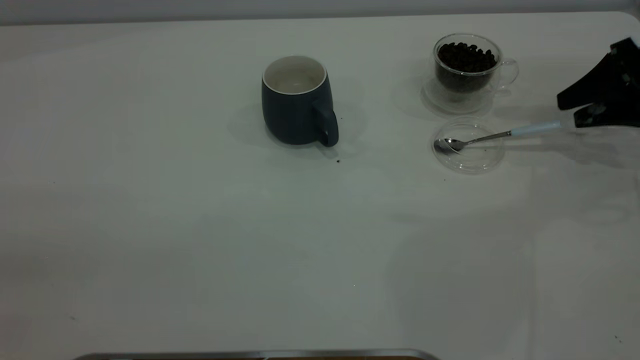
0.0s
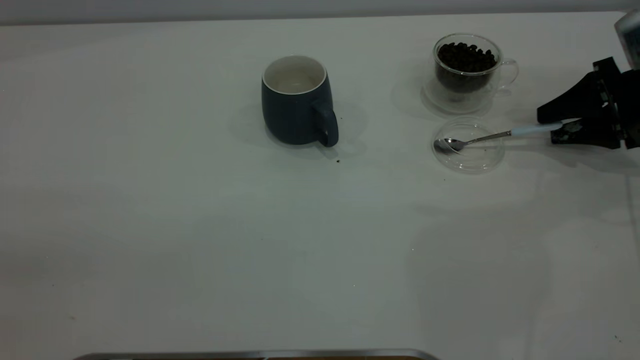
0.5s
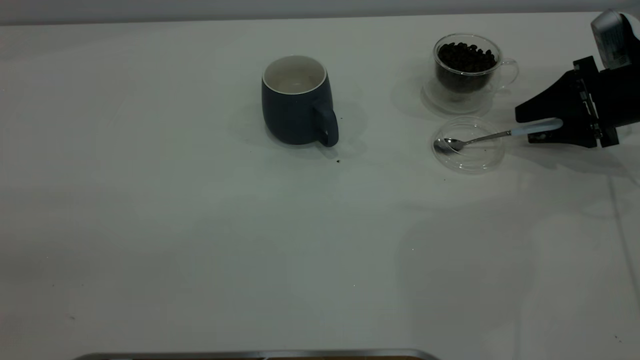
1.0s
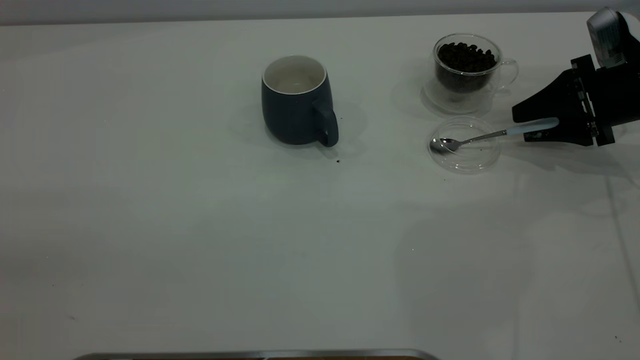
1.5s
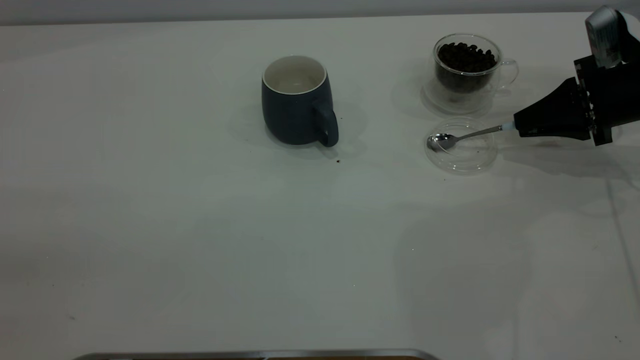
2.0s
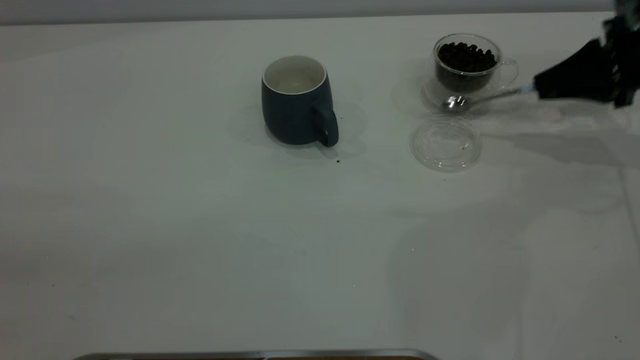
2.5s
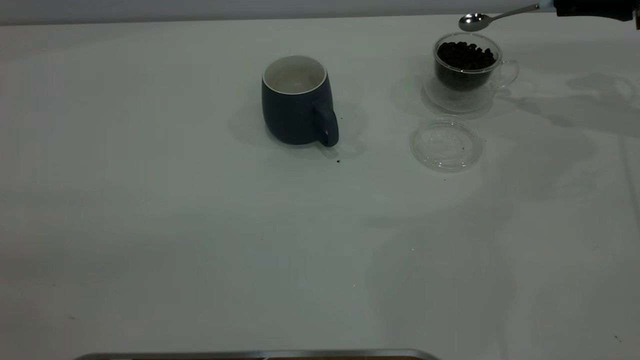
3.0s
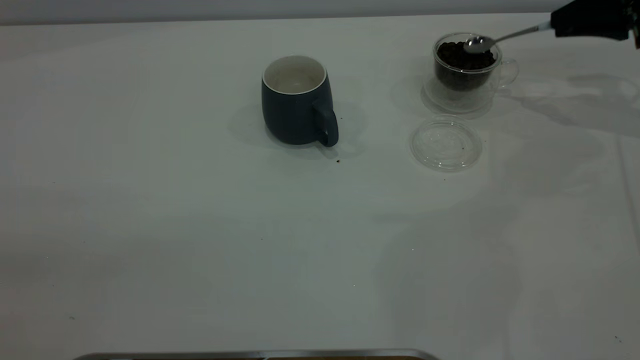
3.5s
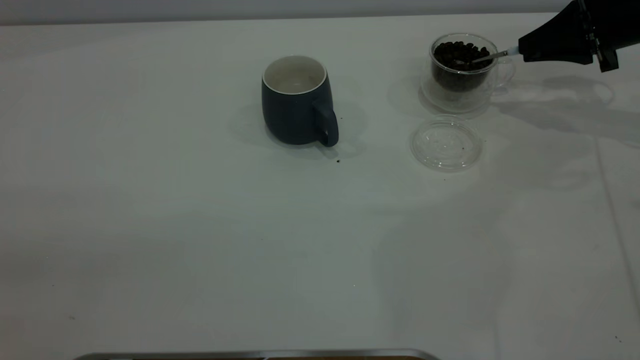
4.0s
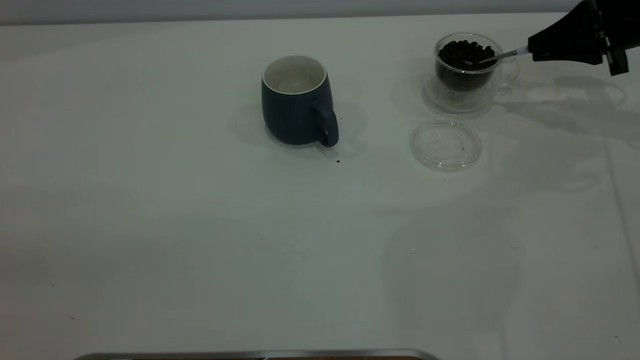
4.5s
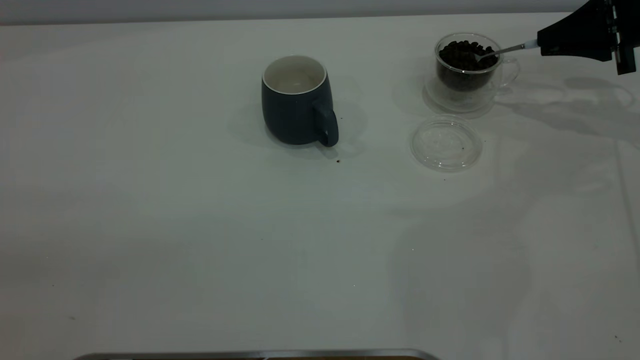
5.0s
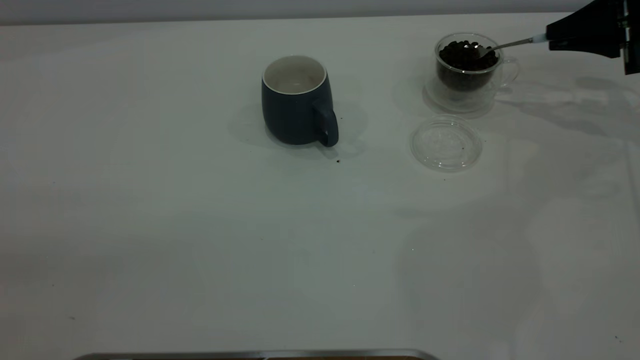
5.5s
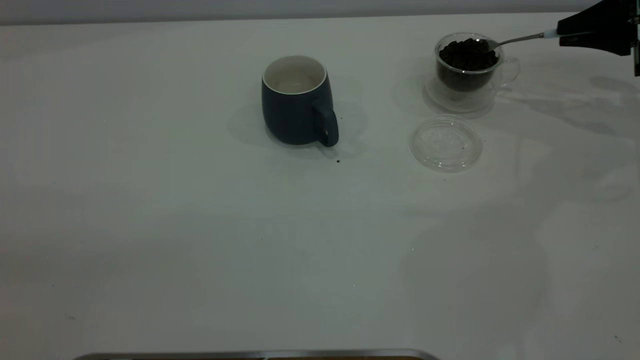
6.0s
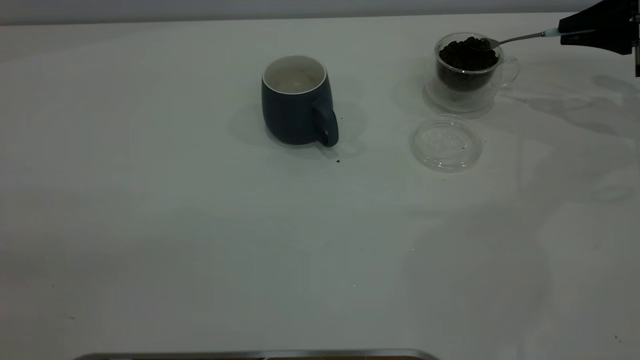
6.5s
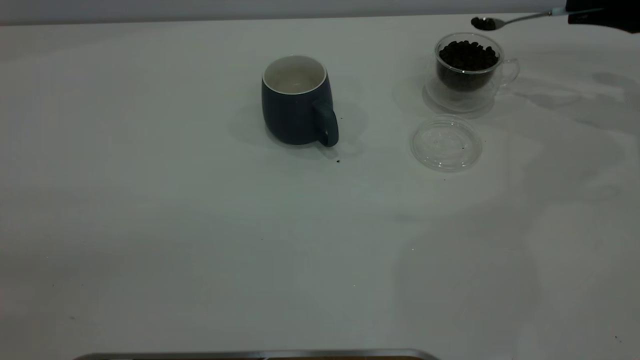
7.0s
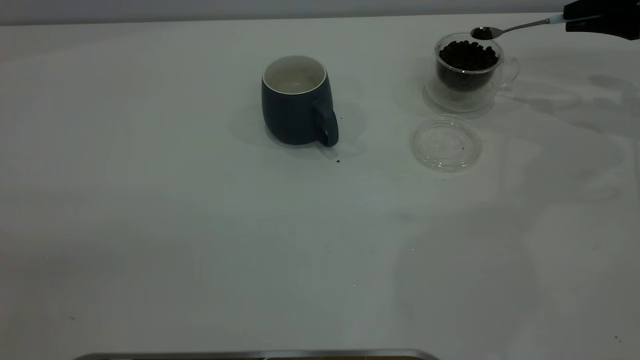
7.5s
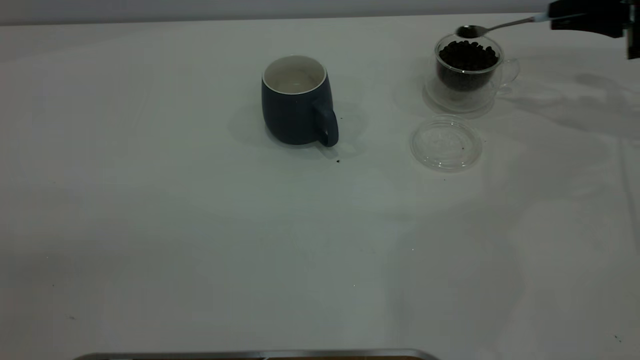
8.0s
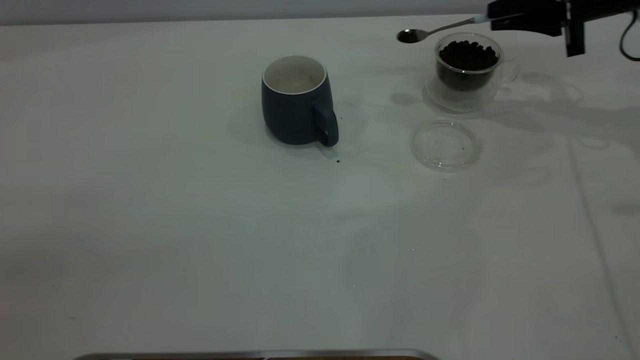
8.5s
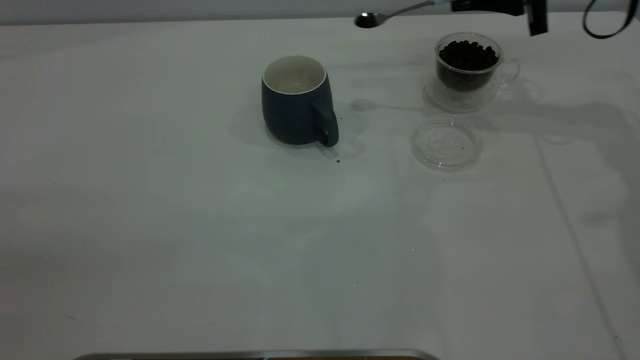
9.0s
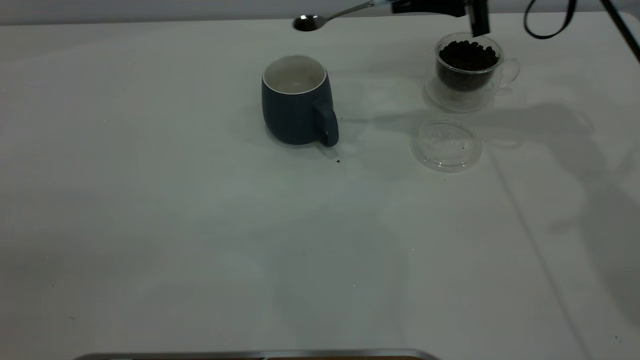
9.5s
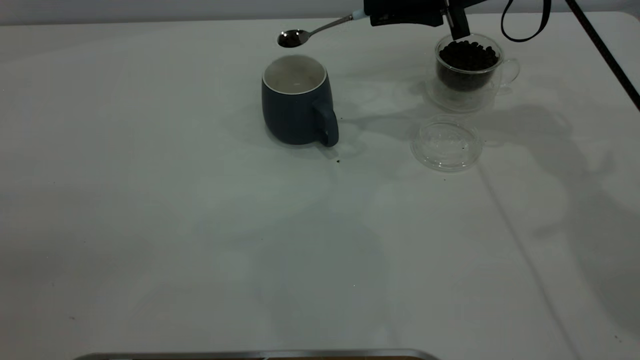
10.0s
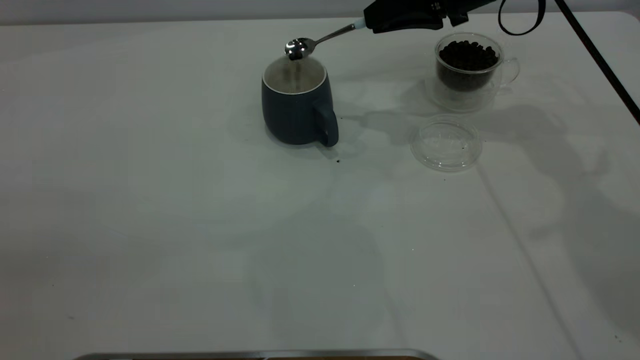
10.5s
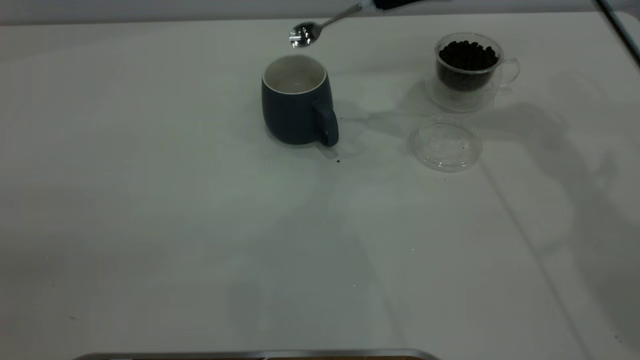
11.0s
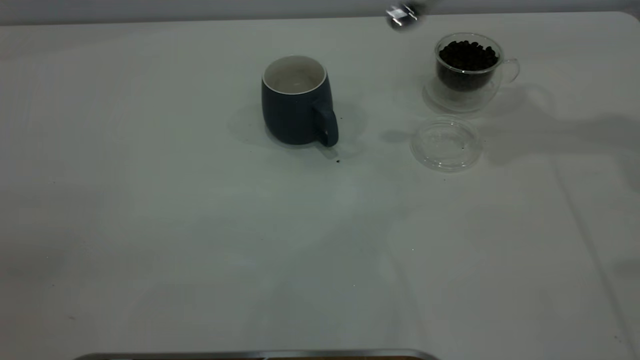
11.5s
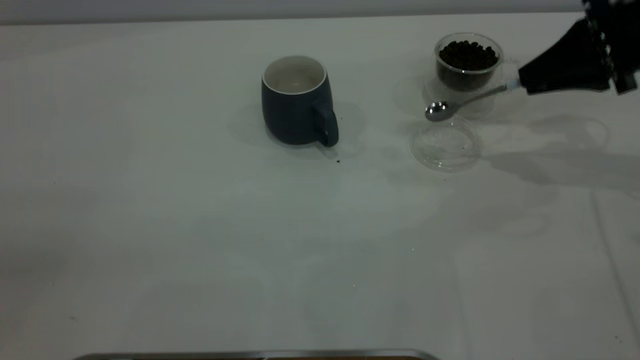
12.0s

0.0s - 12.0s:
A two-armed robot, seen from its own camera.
Task of the whole recording: the left gripper place the grey cup in the center of the table, the right gripper take the blue spoon from the cup lid and scoop out the coffee beans from the coffee cup and put them into the grey cup, the right gripper put the spoon back into the cup lid.
Step, 0.0s - 2.5s: Pick up the spoon.
Step, 3.0s - 10.5s: Scoop a spoonful of beans into the cup.
0.0s - 2.0s: The right gripper closes up.
2.0s - 4.0s: The right gripper is displaced forward and upward by roughly 10 cm.
4.0s - 8.0s: The grippers move only a little.
8.0s - 10.0s: The right gripper heads to the left, covering approximately 20 cm.
10.0s - 12.0s: The right gripper moves to the right and backward, some 15 cm.

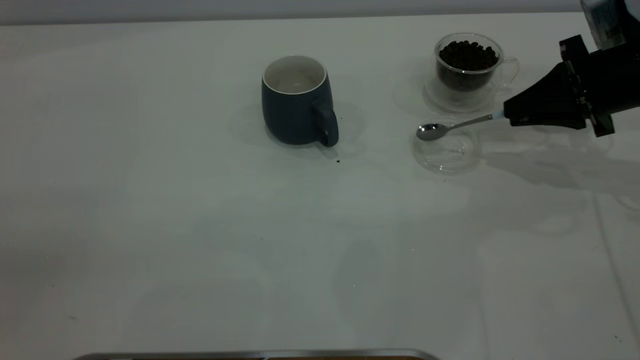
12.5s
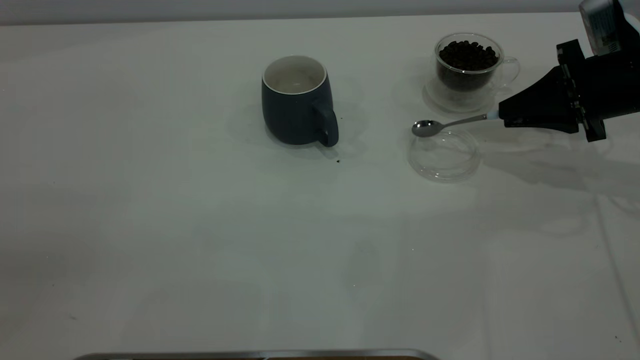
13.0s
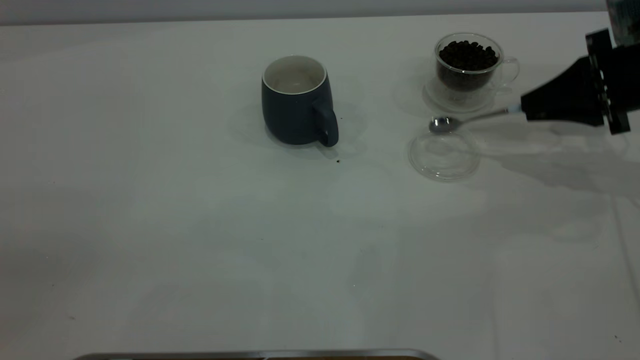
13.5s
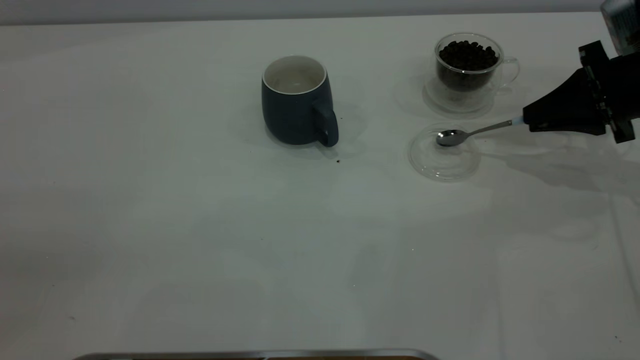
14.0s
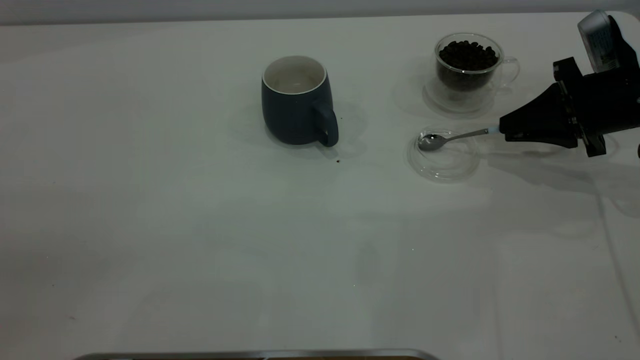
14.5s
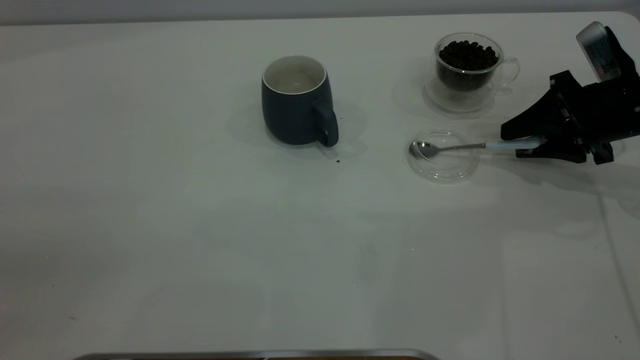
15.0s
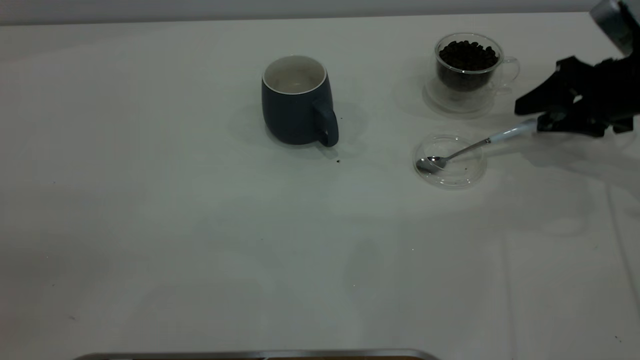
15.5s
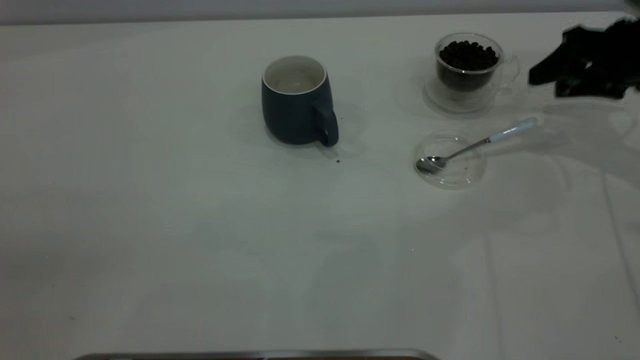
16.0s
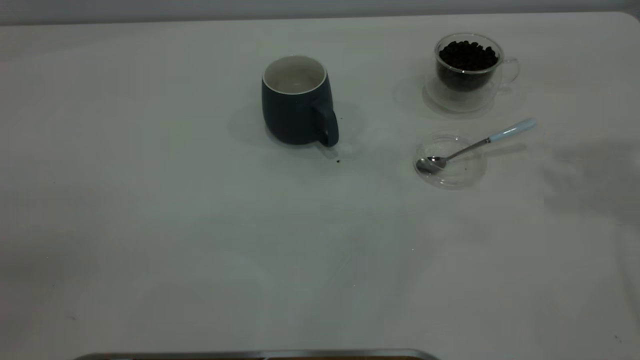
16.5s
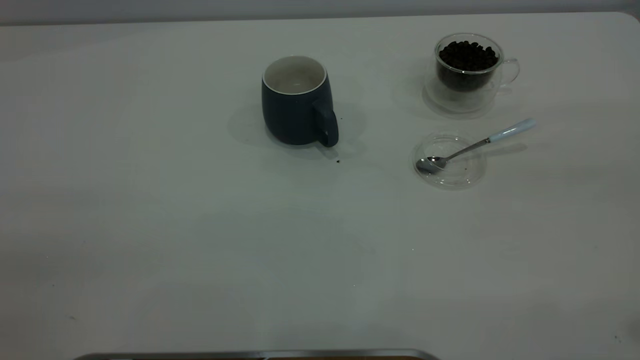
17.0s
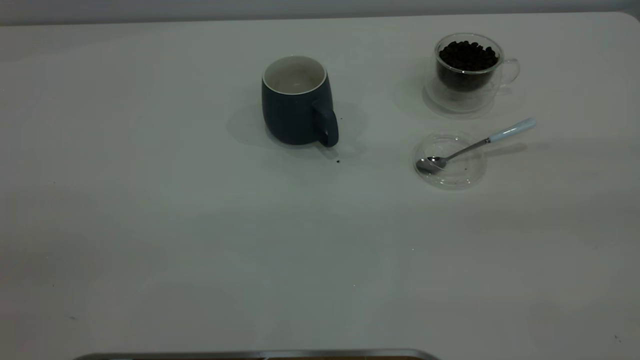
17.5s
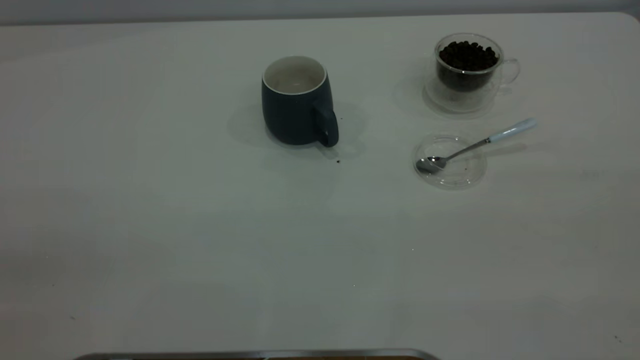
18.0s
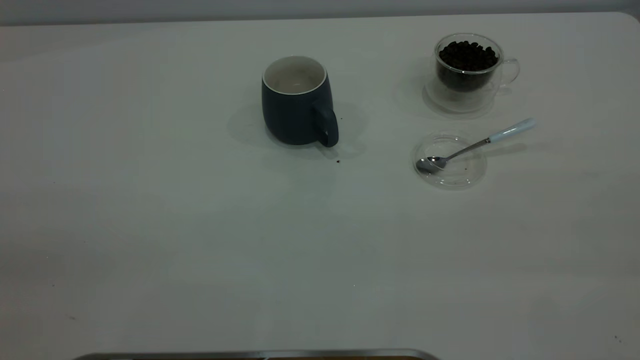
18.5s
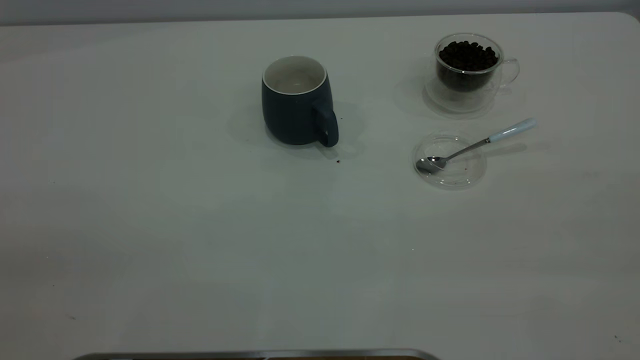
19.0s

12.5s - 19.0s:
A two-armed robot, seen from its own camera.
Task of the whole recording: the left gripper place the grey cup in the center of the table, the right gripper take the blue spoon from the cup lid and scoop out the coffee beans from the coffee cup and put them into the grey cup, the right gripper put the spoon back into the cup lid.
Step, 12.5s - 15.5s: Place the spoon back in its original place.
12.5s - 14.5s: The grippers move only a little.
14.5s - 17.0s: The right gripper moves upward and backward, roughly 40 cm, and opens up.
